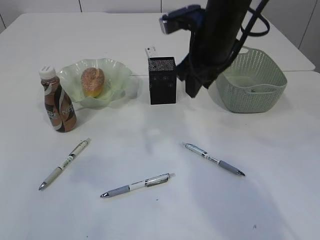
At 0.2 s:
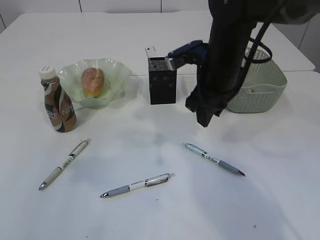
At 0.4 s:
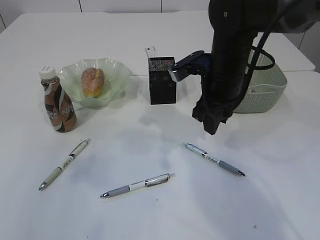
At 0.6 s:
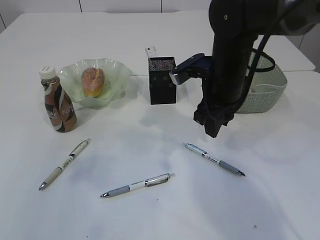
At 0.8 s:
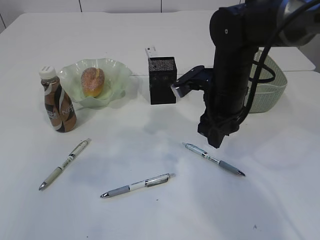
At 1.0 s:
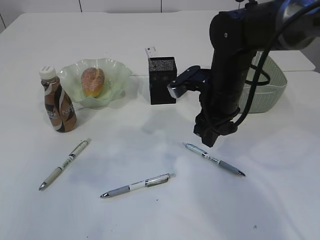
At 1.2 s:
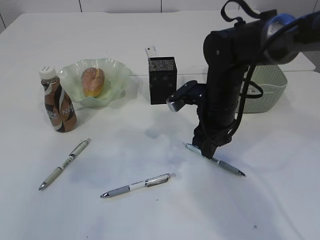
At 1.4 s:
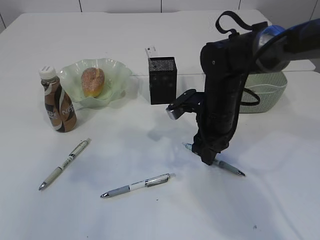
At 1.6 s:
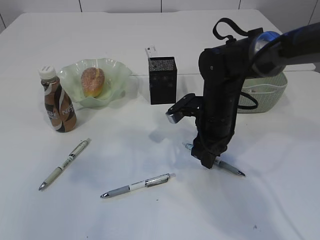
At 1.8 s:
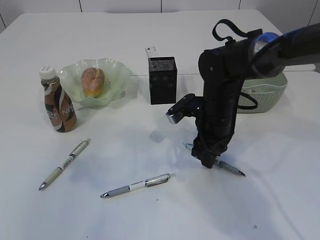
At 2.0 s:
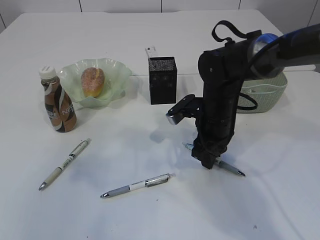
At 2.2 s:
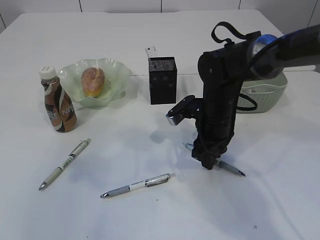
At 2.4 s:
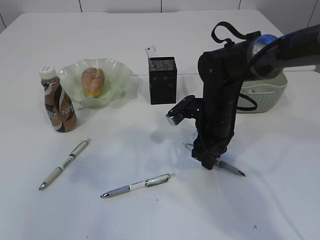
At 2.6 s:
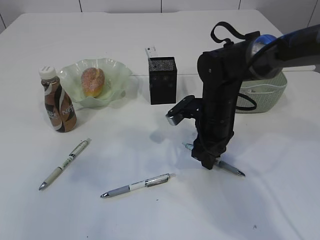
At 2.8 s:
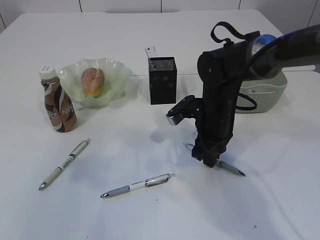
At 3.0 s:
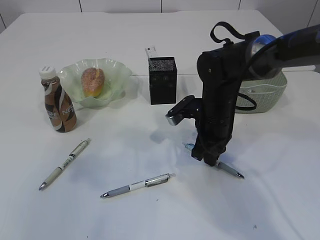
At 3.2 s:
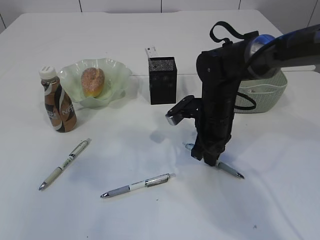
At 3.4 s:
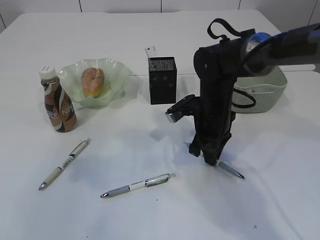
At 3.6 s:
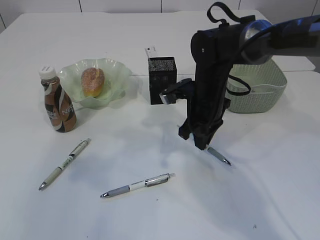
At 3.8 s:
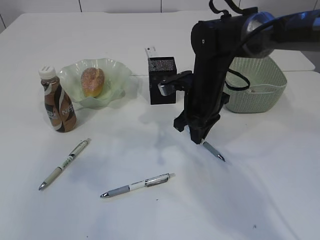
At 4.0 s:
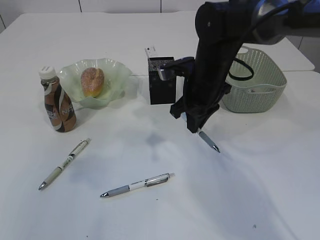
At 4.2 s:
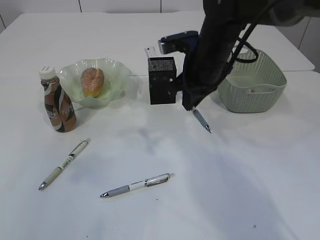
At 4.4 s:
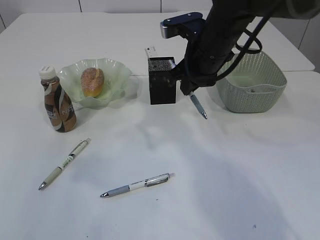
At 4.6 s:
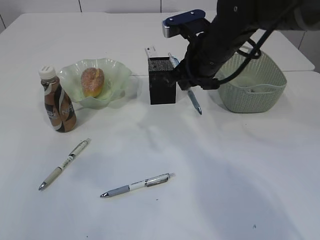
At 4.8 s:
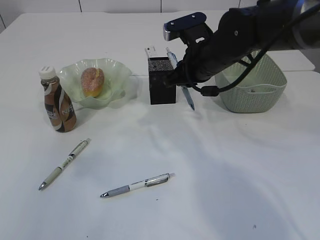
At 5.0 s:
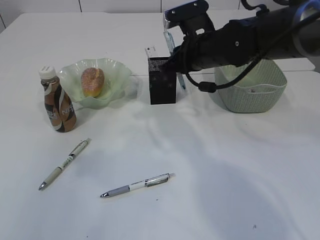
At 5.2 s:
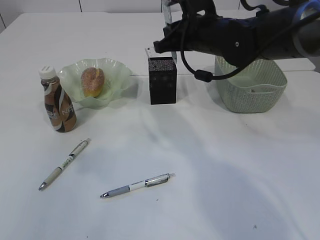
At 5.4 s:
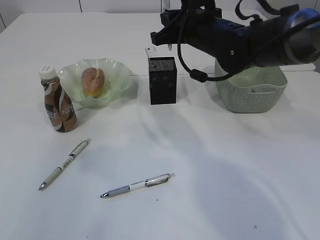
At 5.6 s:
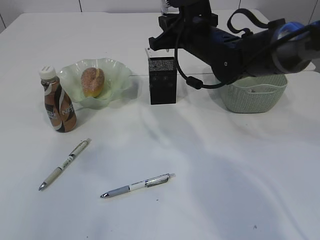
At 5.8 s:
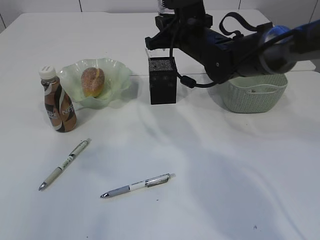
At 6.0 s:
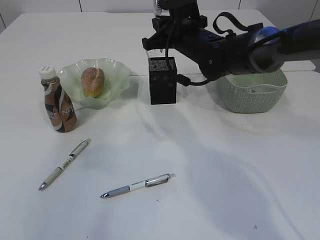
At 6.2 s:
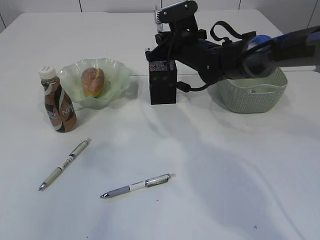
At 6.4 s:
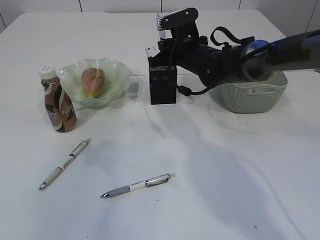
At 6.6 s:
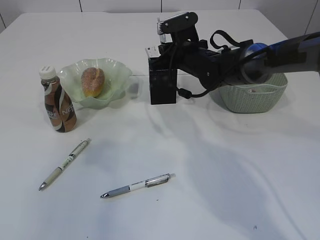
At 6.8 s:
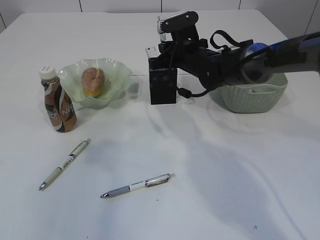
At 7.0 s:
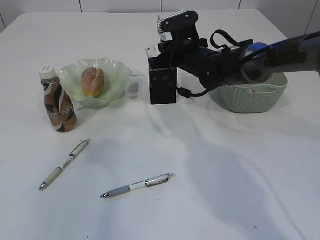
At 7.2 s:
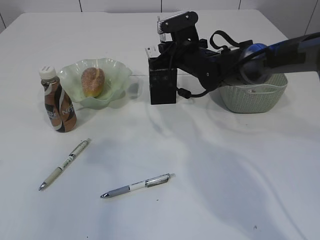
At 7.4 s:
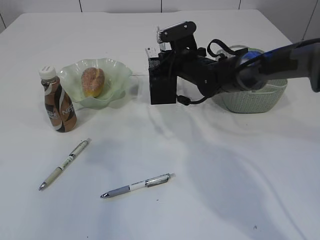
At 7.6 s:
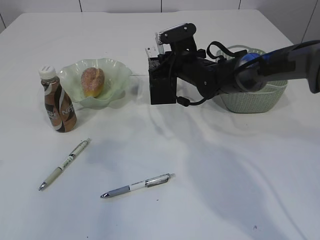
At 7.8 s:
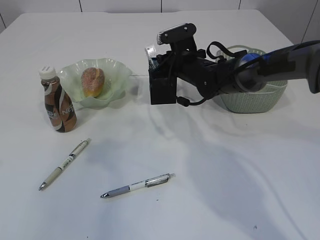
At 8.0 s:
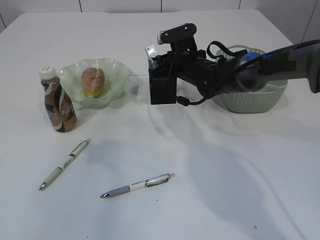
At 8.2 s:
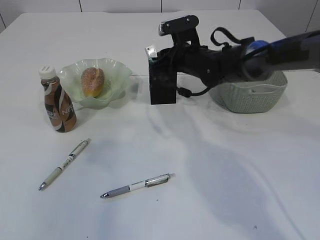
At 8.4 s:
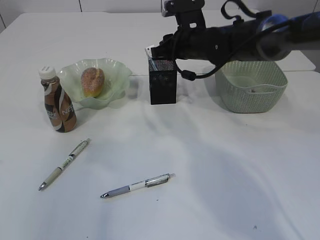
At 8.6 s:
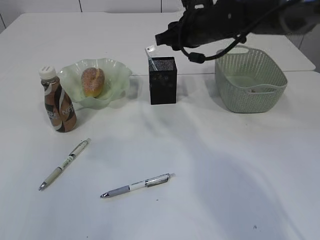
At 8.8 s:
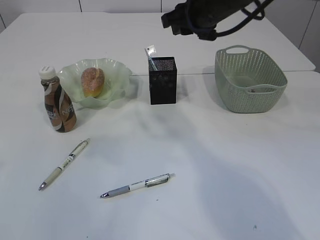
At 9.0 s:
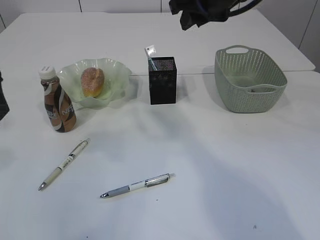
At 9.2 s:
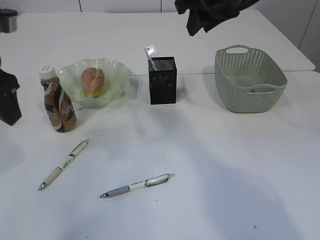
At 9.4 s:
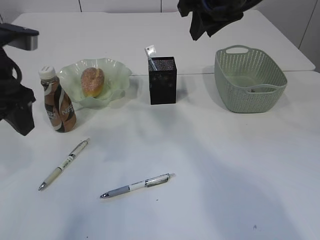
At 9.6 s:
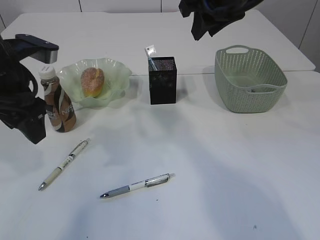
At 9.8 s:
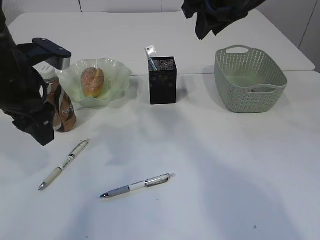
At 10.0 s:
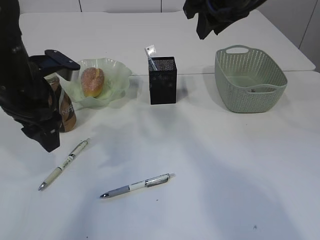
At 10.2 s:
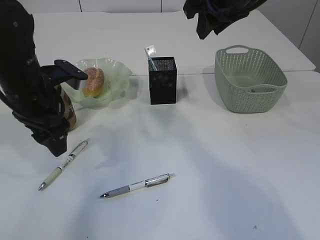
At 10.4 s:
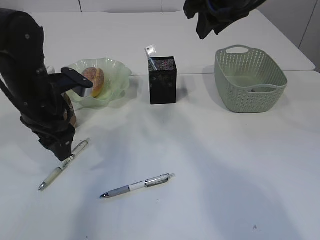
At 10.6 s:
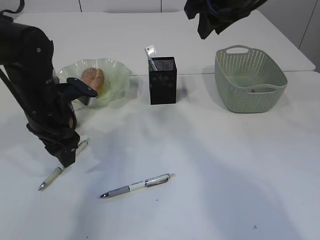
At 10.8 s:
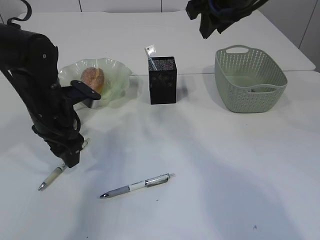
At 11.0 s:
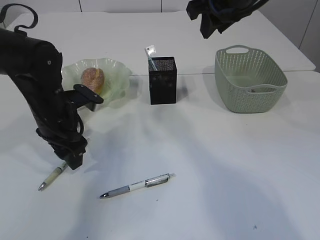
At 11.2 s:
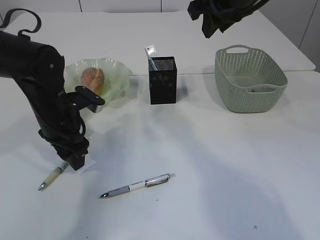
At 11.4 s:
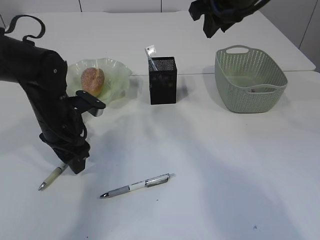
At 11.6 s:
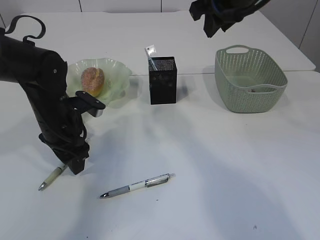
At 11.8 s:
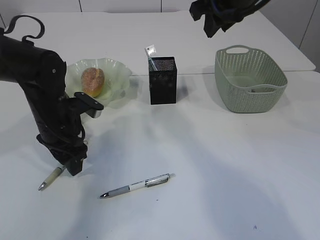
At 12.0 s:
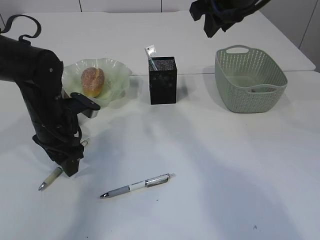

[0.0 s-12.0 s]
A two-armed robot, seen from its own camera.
Step, 0.0 to 3.8 s: Pick up the pen with right arm.
Step, 4.0 to 8.6 s: Place the pen into the pen holder.
0.0 to 1.6 s: The right gripper shifts about 15 cm downward.
1.6 to 3.0 s: The right gripper closes its fingers.
3.0 to 4.4 s: The right gripper goes about 15 cm upward.
4.4 to 6.0 s: The right gripper goes approximately 5 cm forward.
6.0 to 7.6 s: The right gripper heads downward, covering approximately 5 cm.
7.6 to 9.0 s: The left gripper shifts some 5 cm forward; the right gripper moves upward and backward, some 20 cm.
9.0 to 10.4 s: The left gripper shifts some 15 cm downward and forward.
10.4 to 12.0 s: The left gripper is displaced downward by some 5 cm.

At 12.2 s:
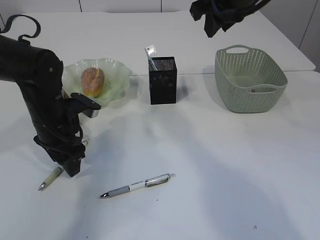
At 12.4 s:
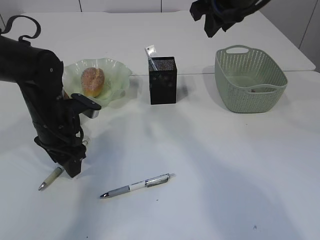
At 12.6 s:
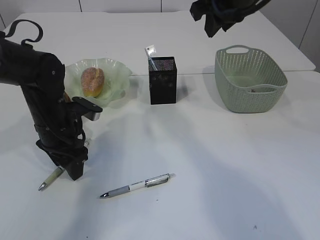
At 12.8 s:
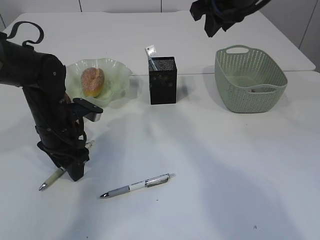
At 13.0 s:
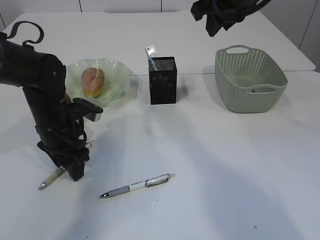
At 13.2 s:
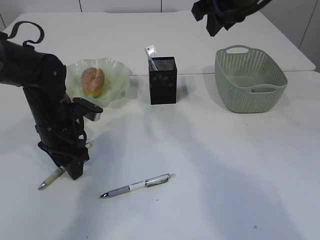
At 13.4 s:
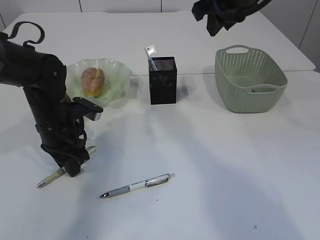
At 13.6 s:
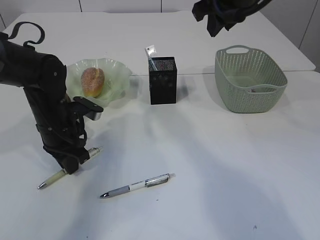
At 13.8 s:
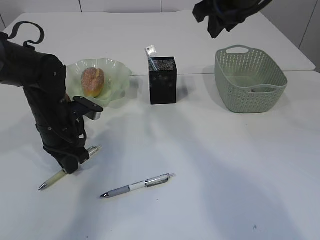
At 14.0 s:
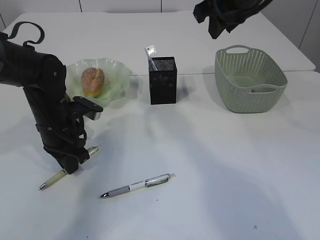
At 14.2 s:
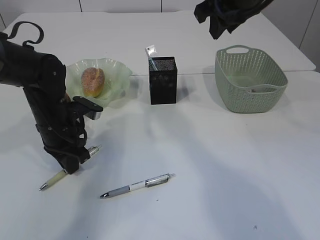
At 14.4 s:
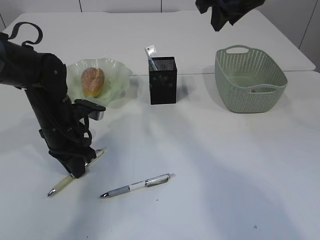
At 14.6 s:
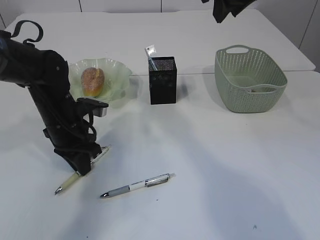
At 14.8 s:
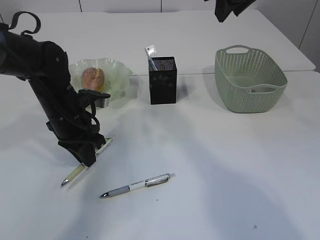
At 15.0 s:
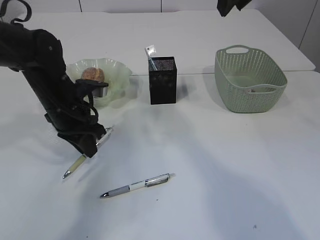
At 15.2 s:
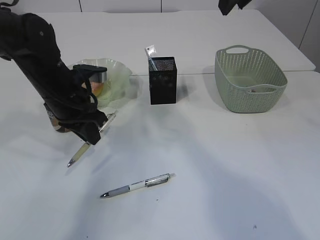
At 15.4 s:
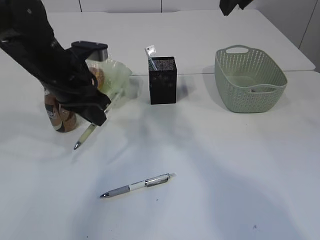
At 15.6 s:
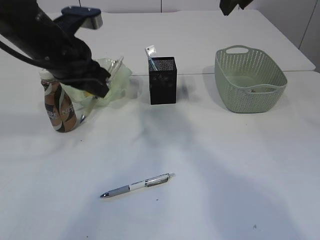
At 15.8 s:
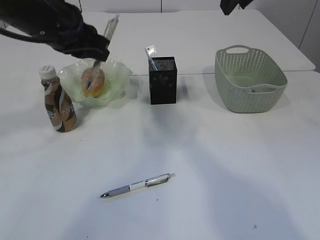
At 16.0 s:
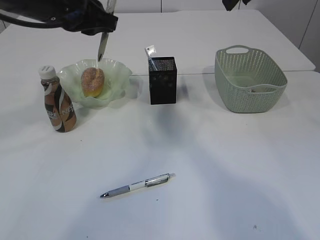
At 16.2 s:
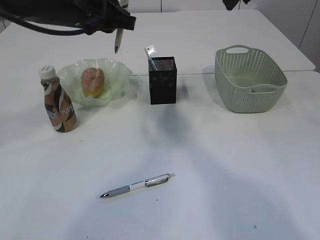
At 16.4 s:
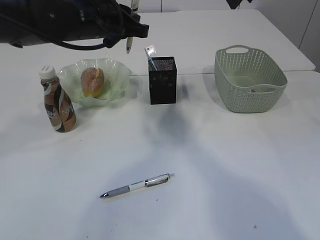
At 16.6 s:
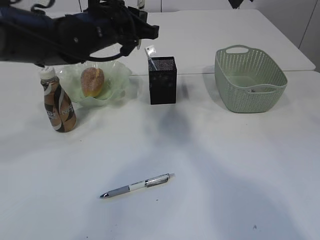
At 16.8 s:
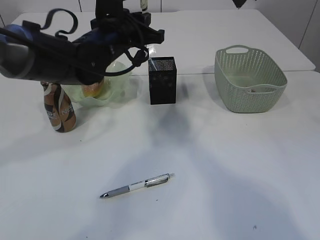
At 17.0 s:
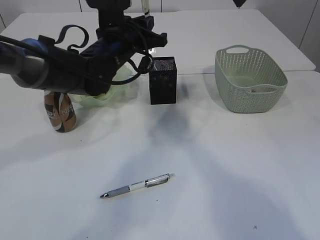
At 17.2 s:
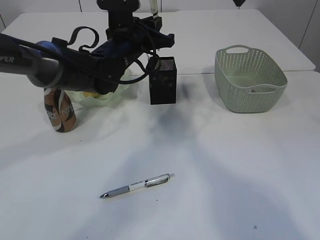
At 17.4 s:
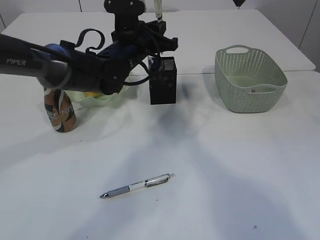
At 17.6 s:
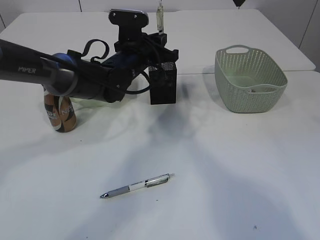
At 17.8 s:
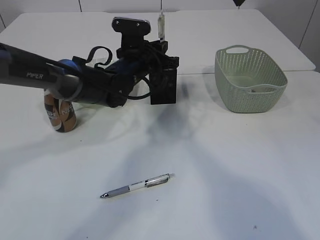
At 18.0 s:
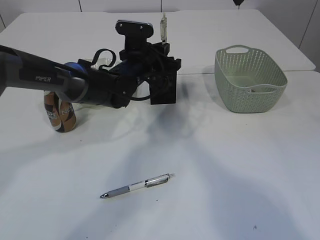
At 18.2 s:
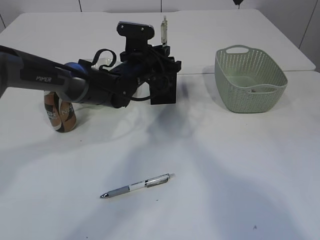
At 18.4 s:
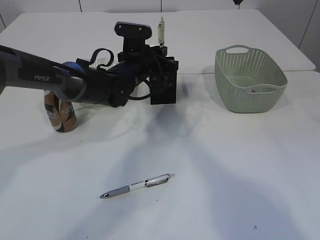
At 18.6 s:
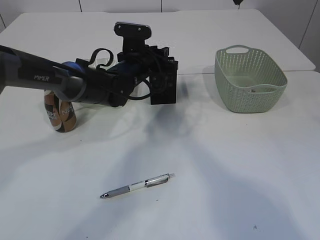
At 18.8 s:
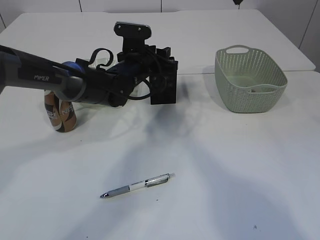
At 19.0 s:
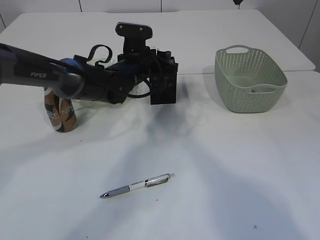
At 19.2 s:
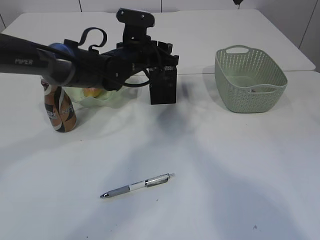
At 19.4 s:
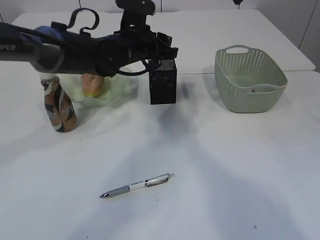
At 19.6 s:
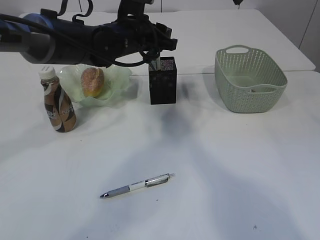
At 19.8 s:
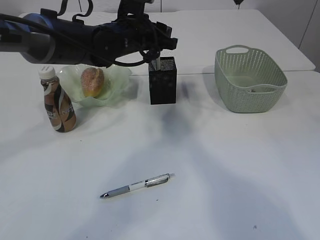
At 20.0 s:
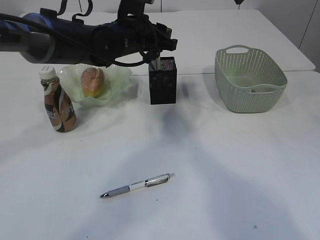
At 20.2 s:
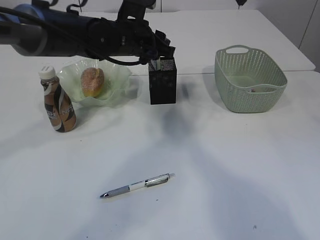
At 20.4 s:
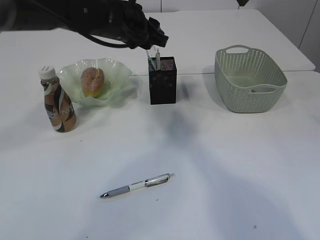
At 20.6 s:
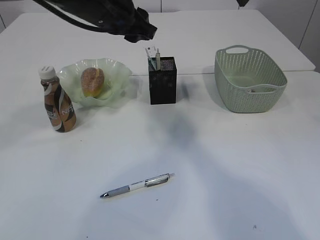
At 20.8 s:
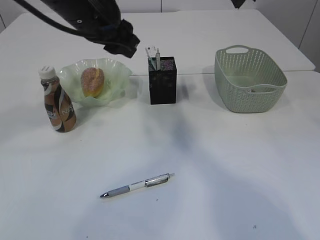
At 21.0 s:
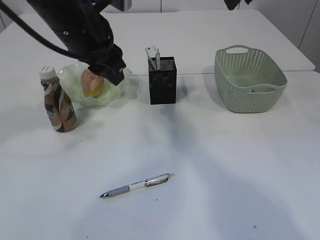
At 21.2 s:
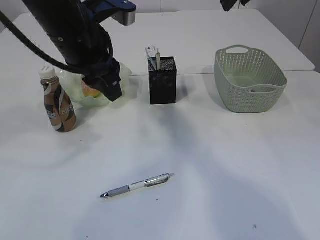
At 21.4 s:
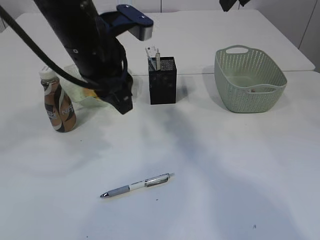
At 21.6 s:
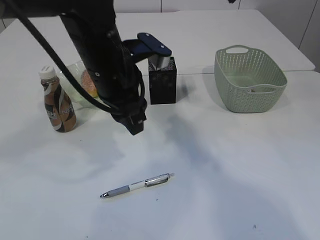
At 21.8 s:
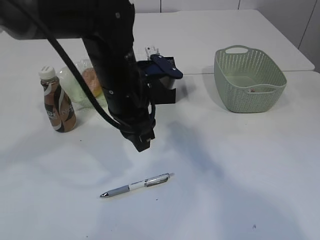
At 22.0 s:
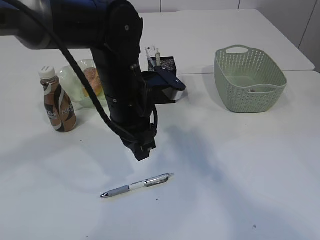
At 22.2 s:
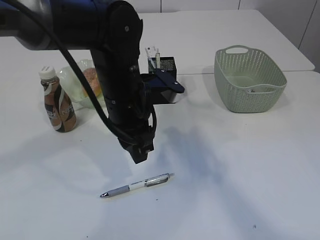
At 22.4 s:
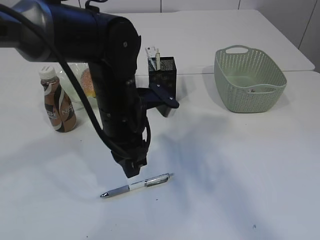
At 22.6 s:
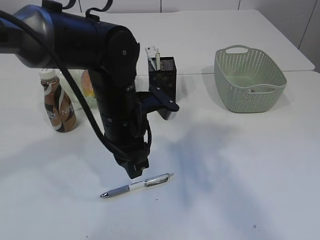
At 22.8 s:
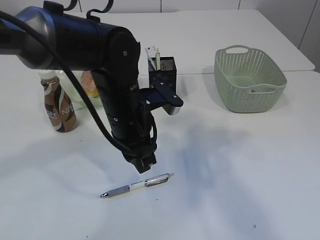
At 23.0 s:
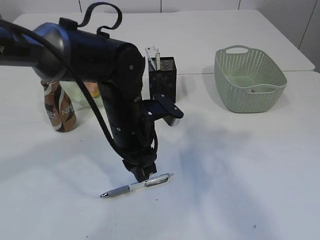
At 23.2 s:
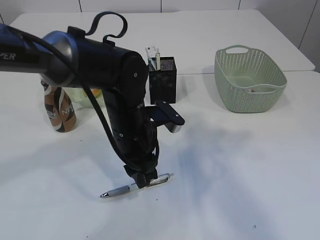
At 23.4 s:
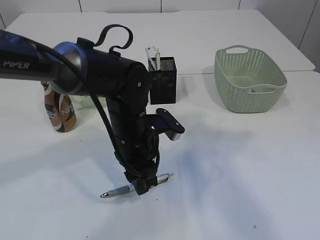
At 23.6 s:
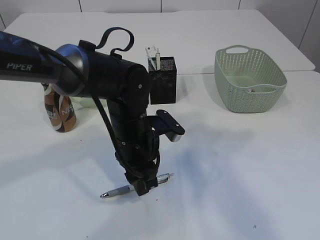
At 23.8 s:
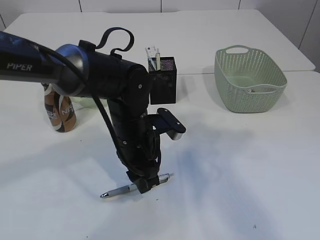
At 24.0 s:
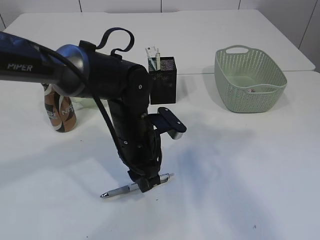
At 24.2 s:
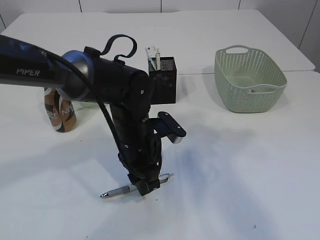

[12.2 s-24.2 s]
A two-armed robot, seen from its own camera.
Step, 12.2 to 15.4 s: Pick up the pen with left arm.
Step, 15.6 to 20.6 s: Place the pen into the pen holder.
12.2 to 13.8 s: The left gripper closes its fingers.
13.8 to 15.2 s: The left gripper moves upward, about 5 cm.
15.2 to 16.6 s: The left gripper travels upward and to the right by about 10 cm.
16.6 to 18.2 s: The left gripper travels downward and forward by some 10 cm.
18.2 to 19.8 s: The left gripper shifts some 10 cm upward, and opens.
19.8 to 21.2 s: The left gripper shifts roughly 15 cm backward and upward.
21.2 to 22.6 s: The right gripper travels backward by roughly 15 cm. Meanwhile the left gripper shifts approximately 15 cm downward and to the right.
22.6 to 24.2 s: The left gripper is displaced downward by about 5 cm.
